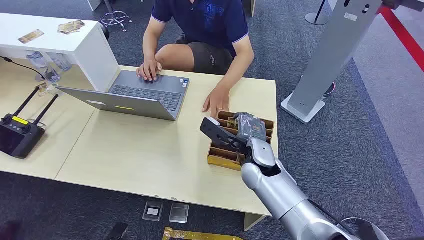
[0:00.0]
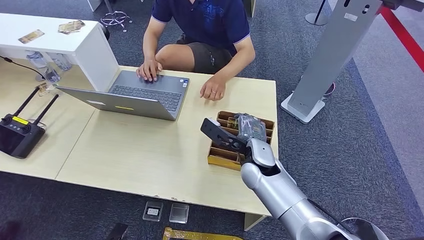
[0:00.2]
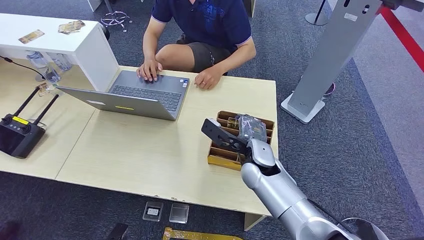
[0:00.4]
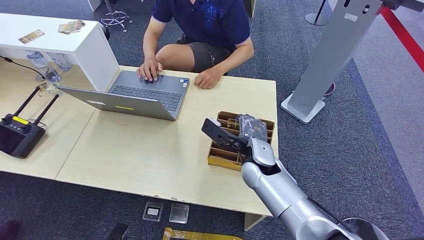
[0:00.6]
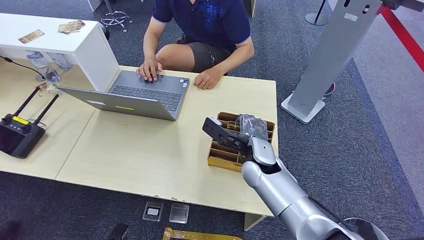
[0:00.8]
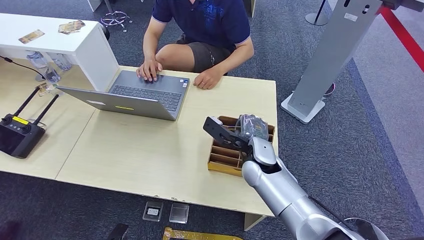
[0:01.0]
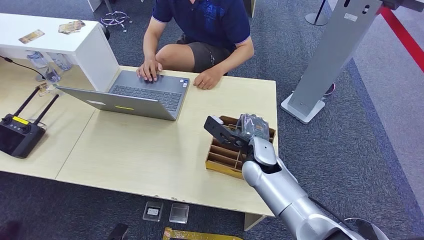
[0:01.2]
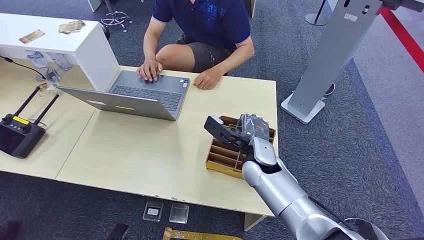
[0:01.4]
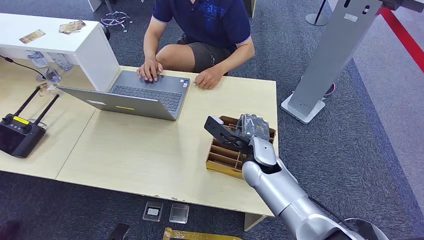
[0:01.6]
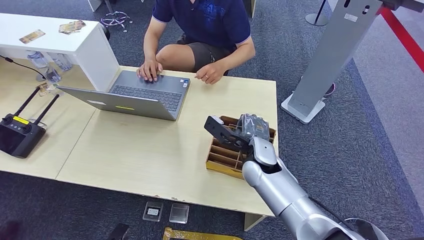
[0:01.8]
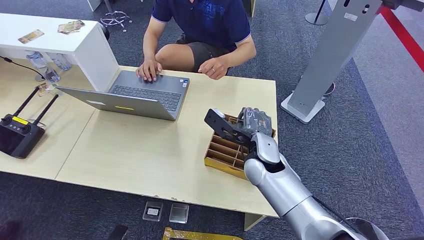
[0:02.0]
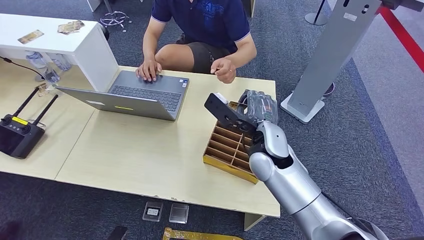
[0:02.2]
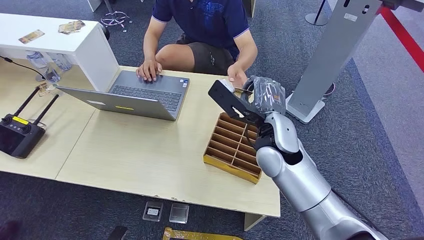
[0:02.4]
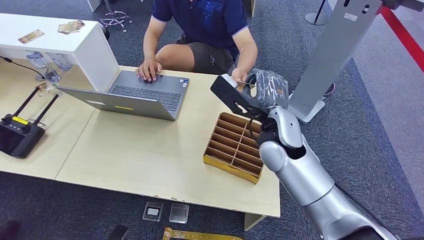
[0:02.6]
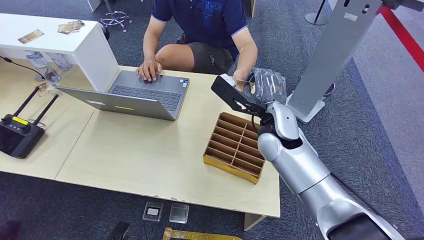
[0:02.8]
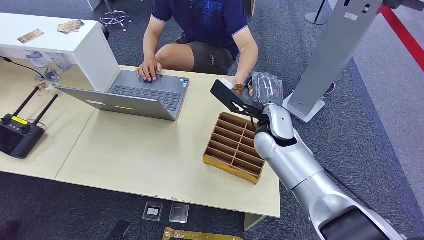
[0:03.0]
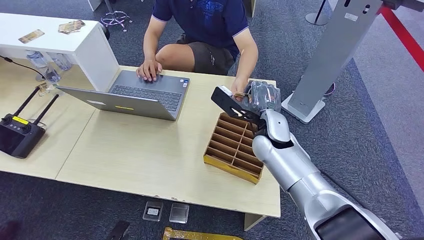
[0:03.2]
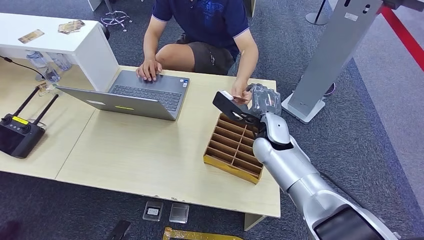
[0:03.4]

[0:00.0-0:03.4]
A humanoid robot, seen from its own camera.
Step, 0:00.0 to 0:02.0: Pick up the room card from the card holder.
Step, 0:02.4 to 0:03.4: Hand the room card to the target.

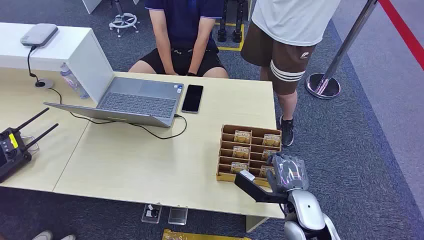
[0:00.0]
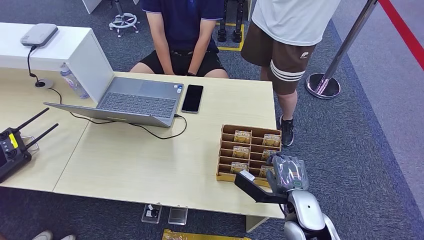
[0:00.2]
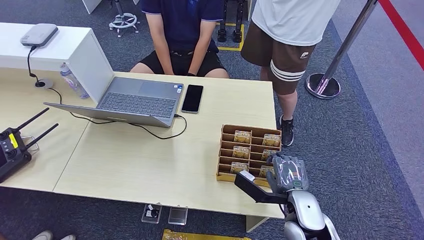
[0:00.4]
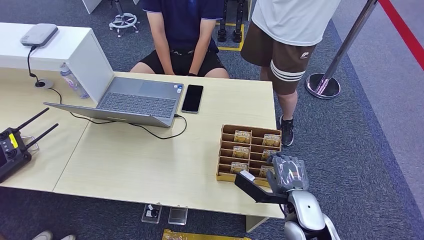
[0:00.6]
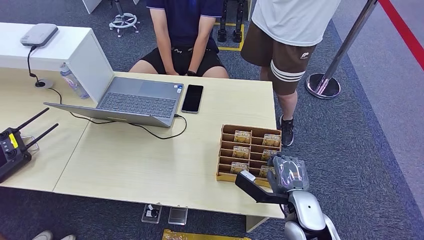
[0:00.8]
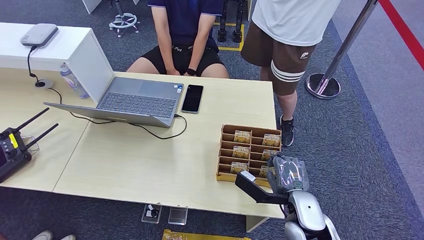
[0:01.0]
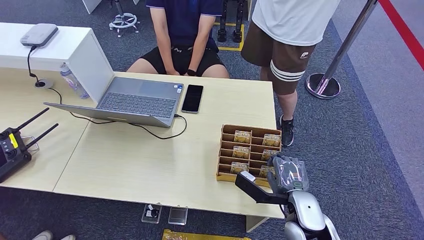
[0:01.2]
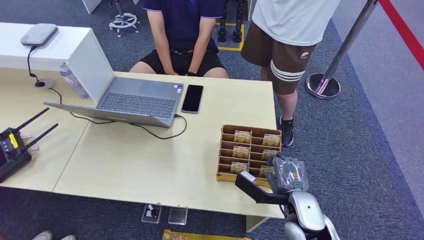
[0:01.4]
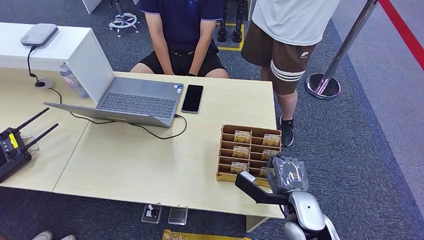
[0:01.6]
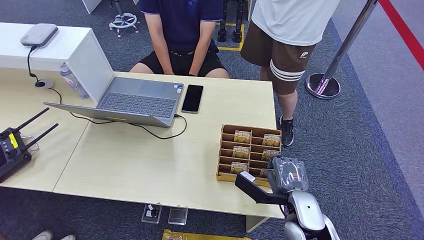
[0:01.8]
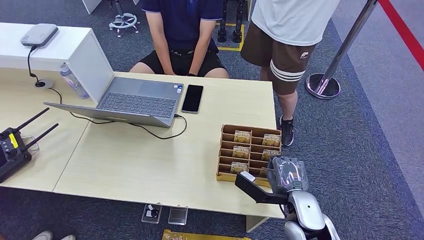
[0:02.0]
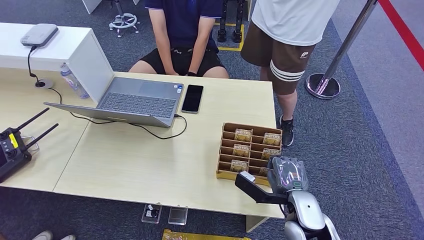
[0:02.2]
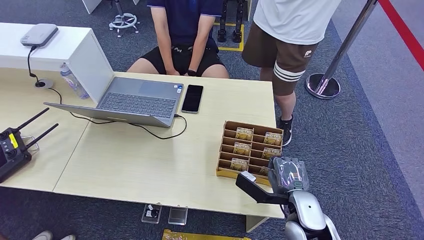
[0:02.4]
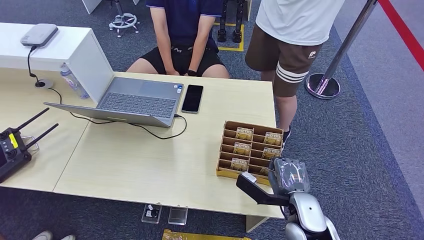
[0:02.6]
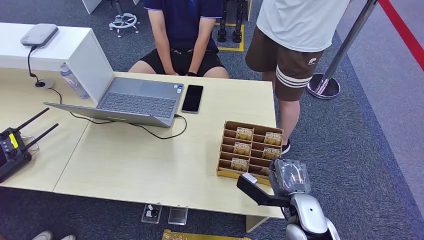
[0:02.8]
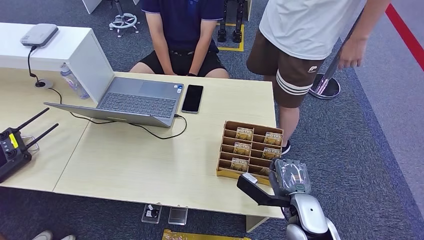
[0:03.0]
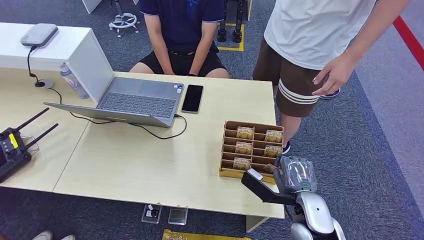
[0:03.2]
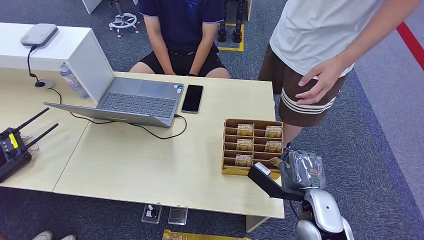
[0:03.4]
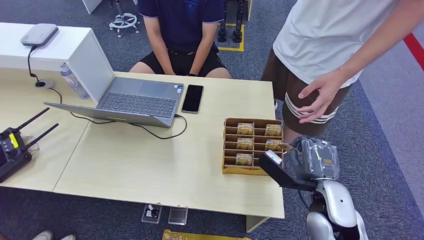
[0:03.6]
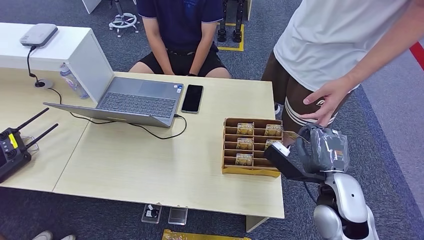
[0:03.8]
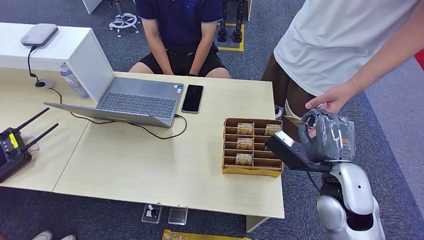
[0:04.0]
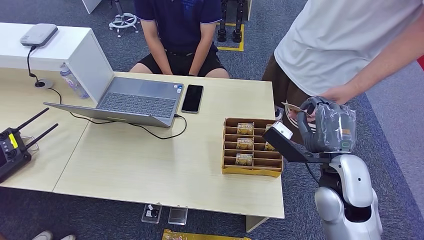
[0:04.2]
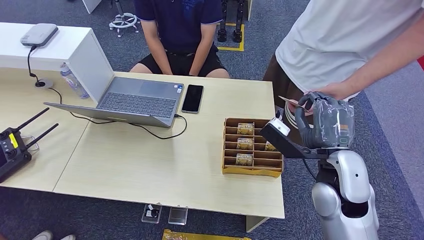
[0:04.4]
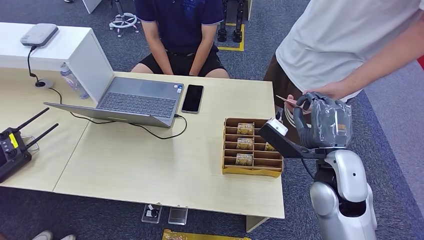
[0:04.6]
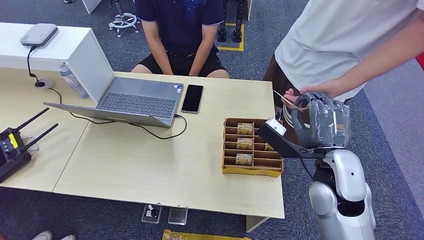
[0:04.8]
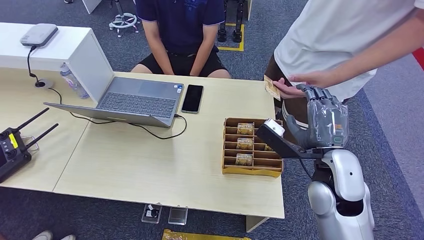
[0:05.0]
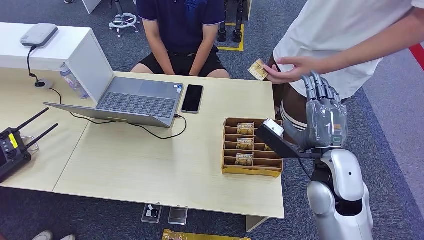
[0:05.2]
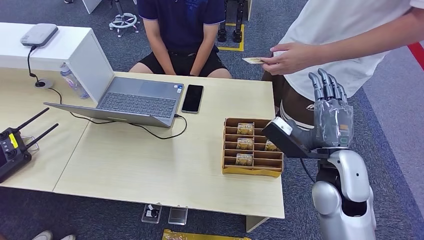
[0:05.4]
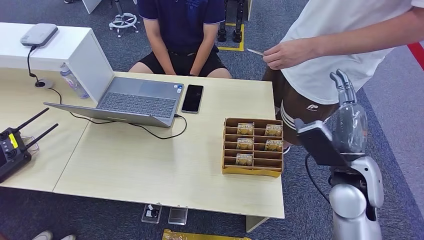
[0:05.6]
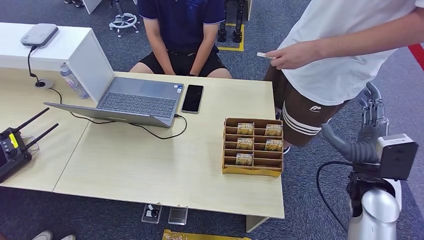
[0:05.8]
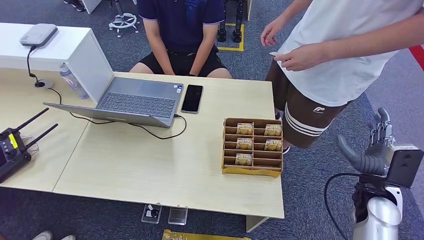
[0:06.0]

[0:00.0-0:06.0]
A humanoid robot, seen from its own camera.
Step, 0:00.0 to 0:03.8: Pick up the room card from the card holder.
Step, 0:04.0 to 0:06.0: Hand the room card to the target.
0:01.6 to 0:03.0: The hands make only small movements.
0:04.4 to 0:06.0: The right hand moves to the right and downward, about 20 cm.
